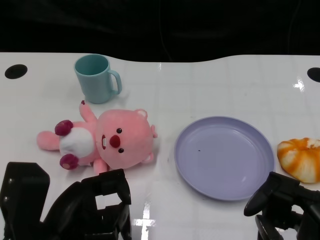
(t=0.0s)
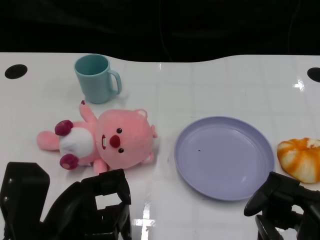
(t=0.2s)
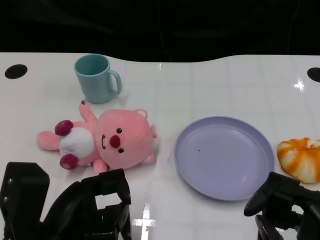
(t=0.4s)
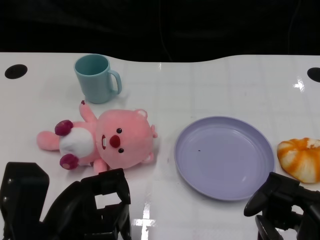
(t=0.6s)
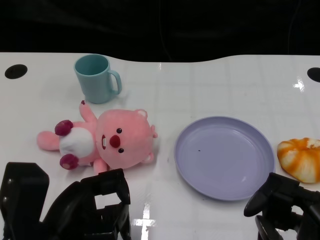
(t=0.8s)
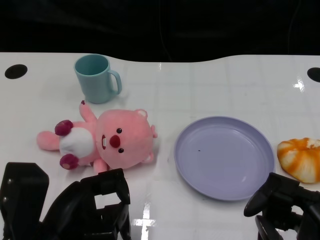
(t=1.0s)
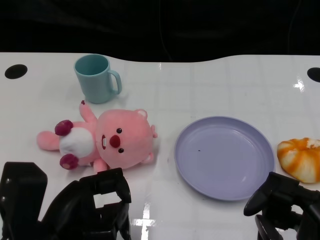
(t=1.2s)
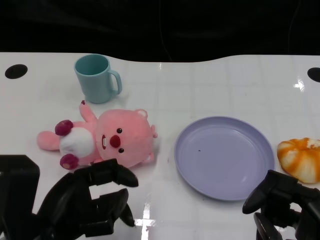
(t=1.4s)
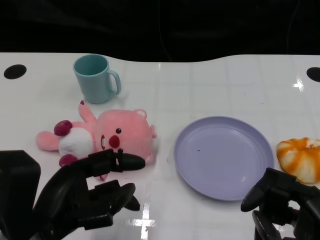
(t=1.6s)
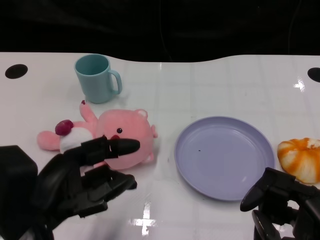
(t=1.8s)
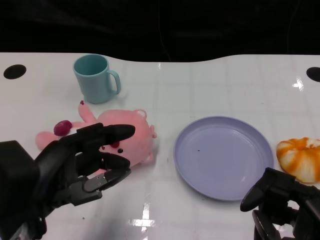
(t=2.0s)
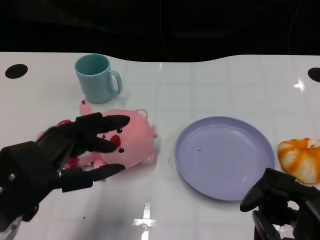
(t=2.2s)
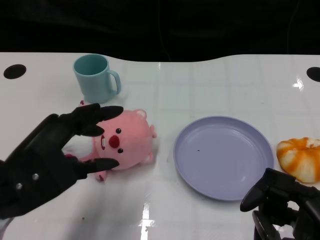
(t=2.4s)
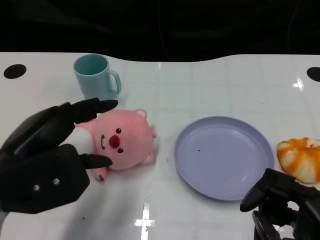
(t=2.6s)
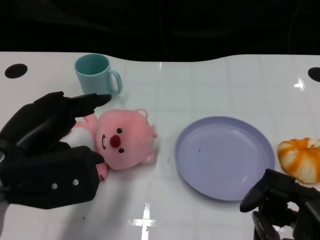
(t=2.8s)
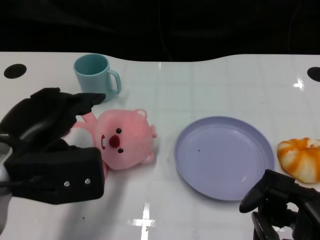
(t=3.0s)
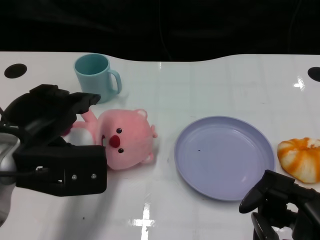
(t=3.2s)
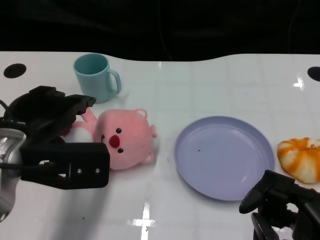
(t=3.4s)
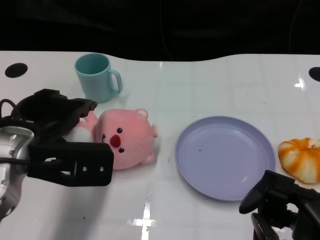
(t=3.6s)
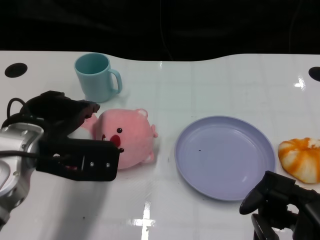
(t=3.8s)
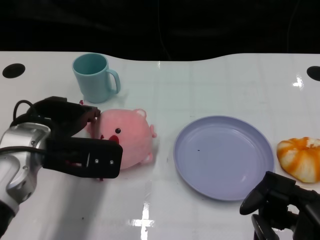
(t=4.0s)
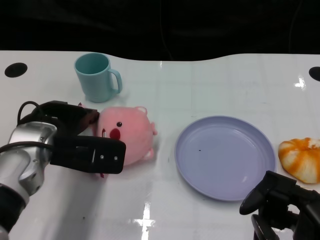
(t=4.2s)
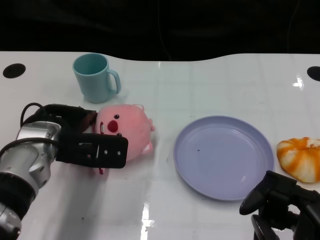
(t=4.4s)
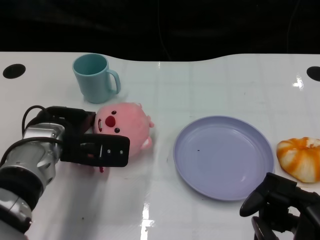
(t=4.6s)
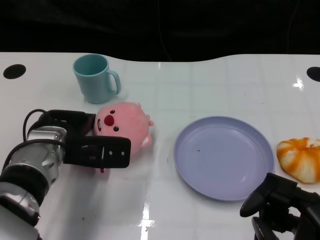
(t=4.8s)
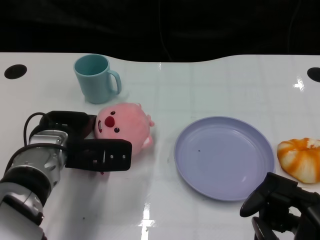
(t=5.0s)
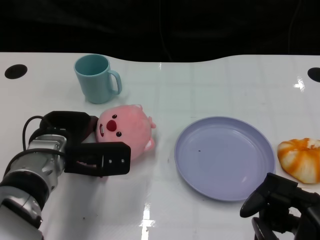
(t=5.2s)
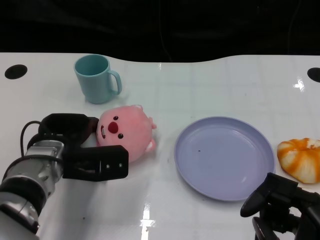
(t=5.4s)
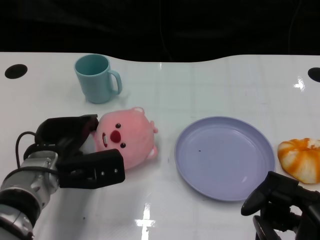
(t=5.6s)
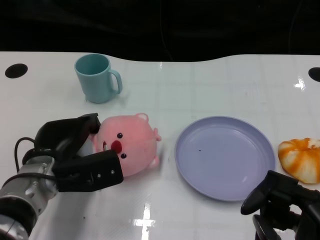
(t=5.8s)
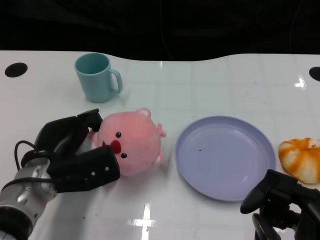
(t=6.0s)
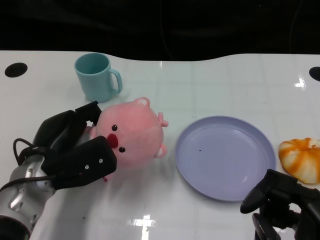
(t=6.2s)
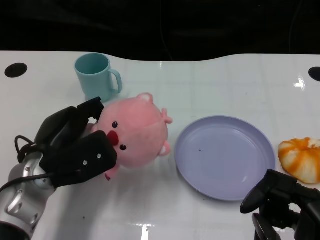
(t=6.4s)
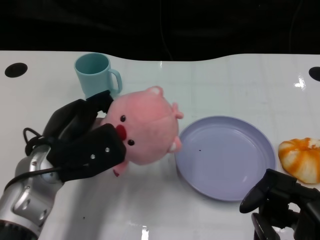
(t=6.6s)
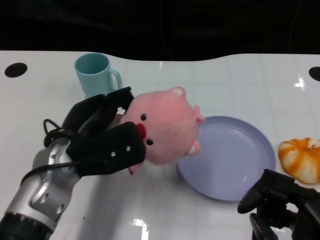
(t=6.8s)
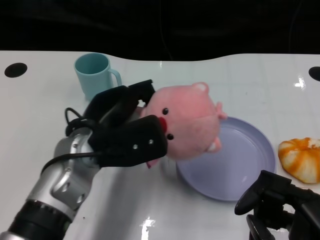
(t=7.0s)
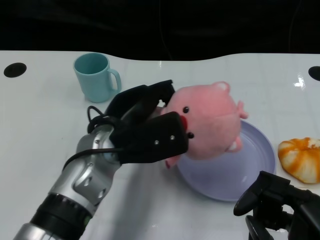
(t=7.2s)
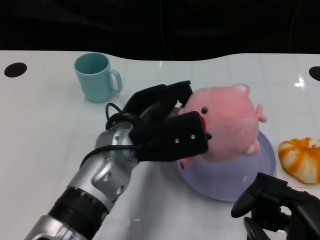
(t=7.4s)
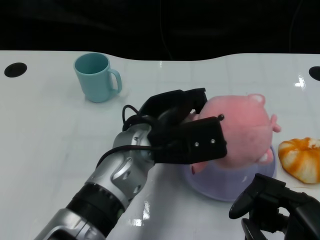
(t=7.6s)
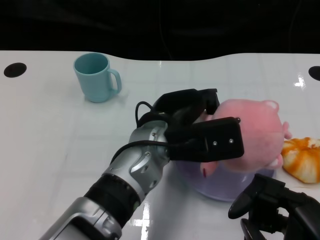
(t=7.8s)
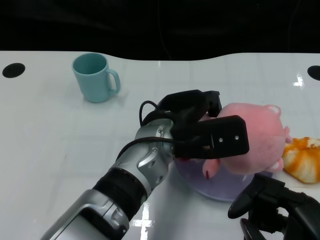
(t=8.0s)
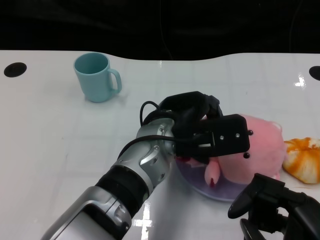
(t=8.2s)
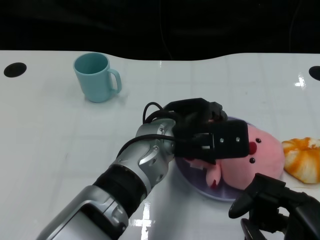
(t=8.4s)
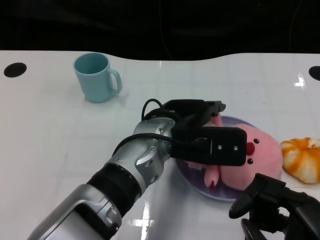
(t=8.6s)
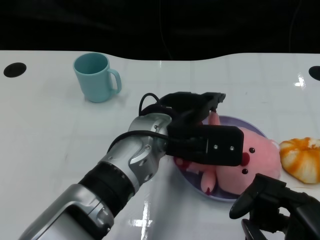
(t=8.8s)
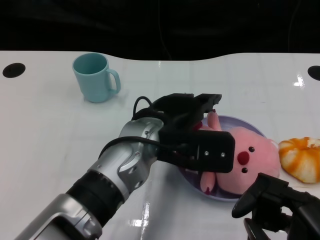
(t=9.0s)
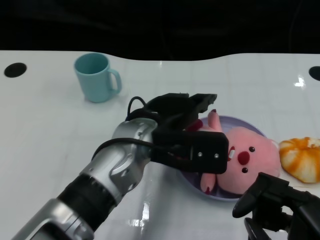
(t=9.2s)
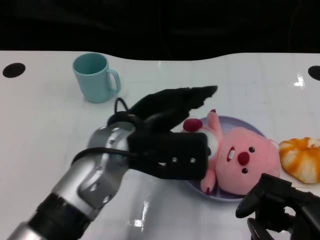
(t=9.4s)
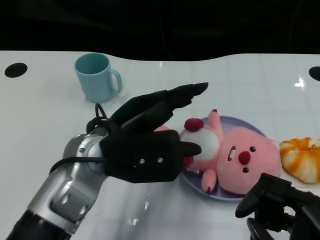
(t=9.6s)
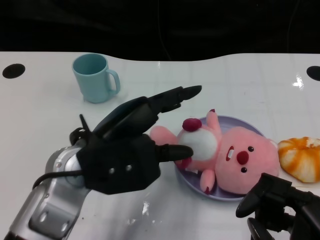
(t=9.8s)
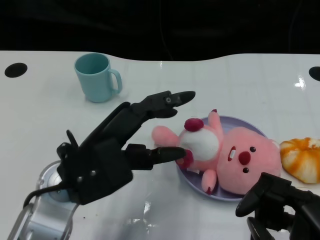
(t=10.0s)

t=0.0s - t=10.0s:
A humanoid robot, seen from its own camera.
Task of the whole recording: Pick up the doll on one side of the plate and place it into the plate.
Step, t=1.2s - t=5.8s: Grasp the pink doll with the left gripper.
Step, t=6.0s - t=9.2s: Place the pink doll into the plate with the left gripper.
t=1.4s - t=2.8s: The left hand moves upward and forward, roughly 10 cm.
t=2.8s - t=4.2s: The left hand moves forward and downward, approximately 10 cm.
t=4.2s - t=5.8s: The left hand is displaced downward by approximately 5 cm.
t=5.8s - t=7.2s: The left hand is displaced to the right and upward by some 10 cm.
t=7.2s - t=8.6s: The left hand travels to the right by some 10 cm.
t=8.6s - t=10.0s: The left hand goes some 15 cm to the left and backward.

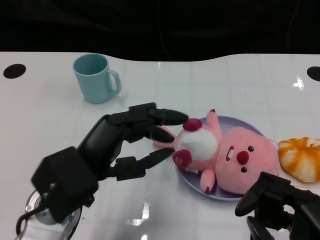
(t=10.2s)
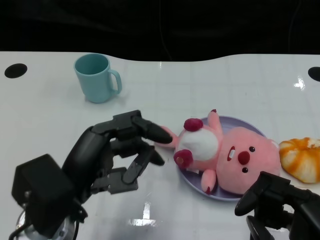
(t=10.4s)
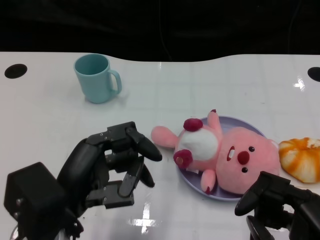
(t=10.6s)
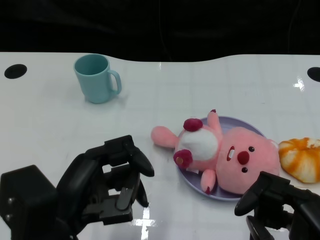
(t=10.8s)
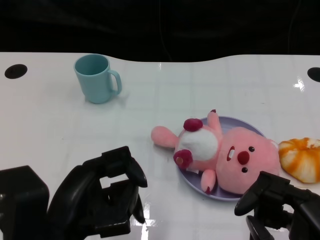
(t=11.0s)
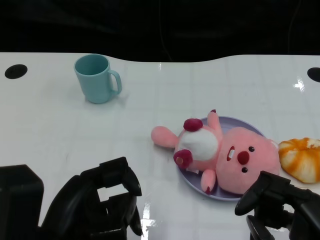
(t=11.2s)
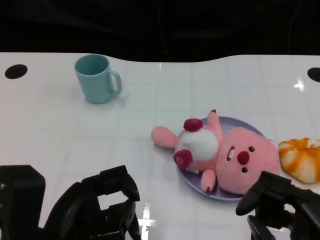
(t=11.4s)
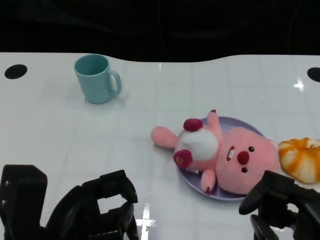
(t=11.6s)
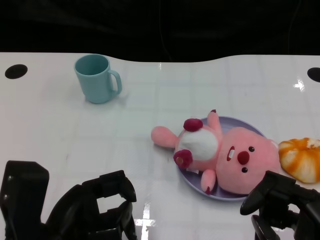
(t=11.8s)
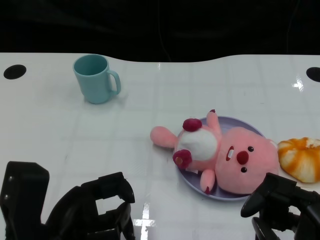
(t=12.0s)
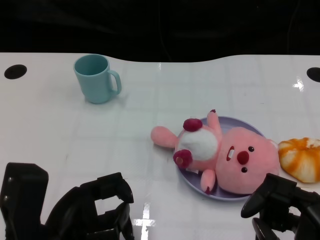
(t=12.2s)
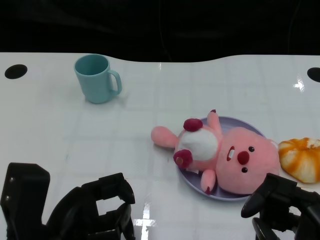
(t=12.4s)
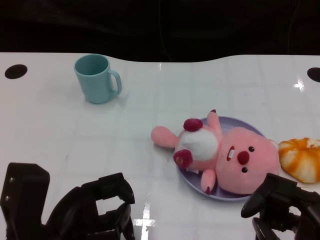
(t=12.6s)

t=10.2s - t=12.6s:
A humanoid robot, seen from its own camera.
Task of the whole recording: Pick up the doll on one side of the plate and place it into the plate.
t=10.2s - t=11.4s: The left hand goes roughly 5 cm backward.
t=11.4s - t=12.6s: There are only small adjustments of the hands.

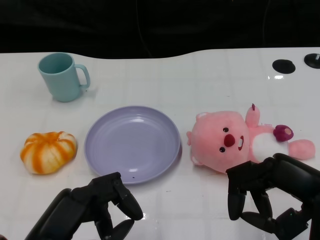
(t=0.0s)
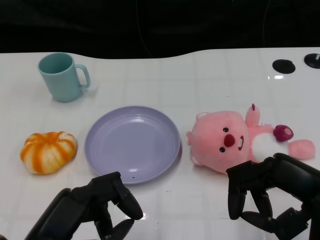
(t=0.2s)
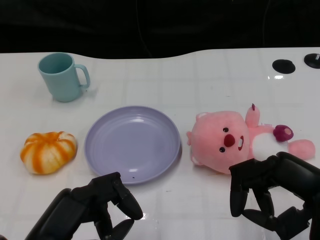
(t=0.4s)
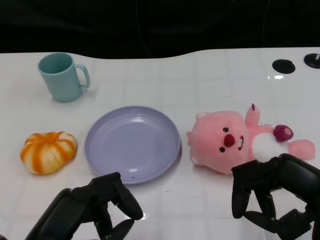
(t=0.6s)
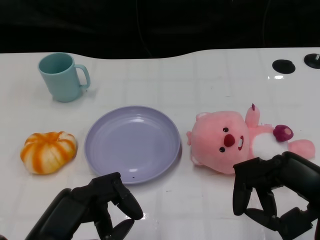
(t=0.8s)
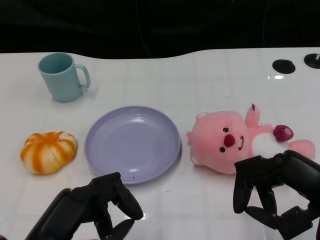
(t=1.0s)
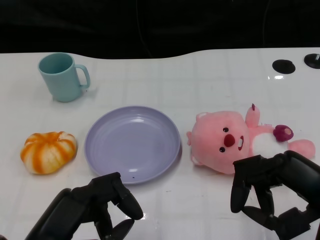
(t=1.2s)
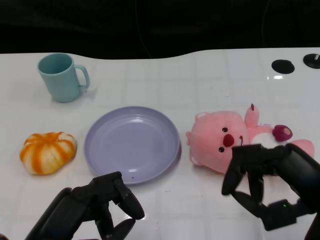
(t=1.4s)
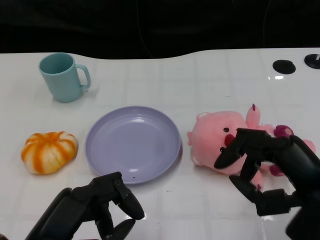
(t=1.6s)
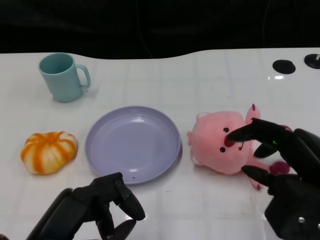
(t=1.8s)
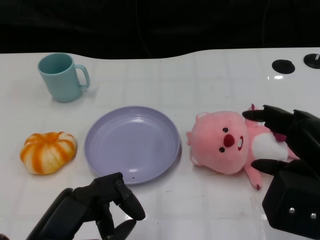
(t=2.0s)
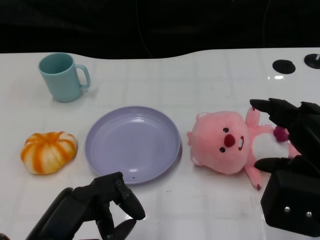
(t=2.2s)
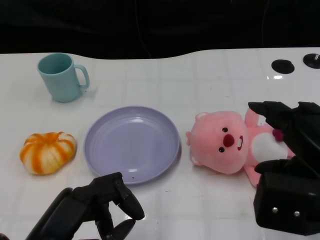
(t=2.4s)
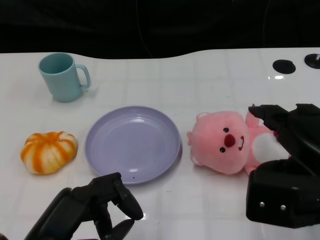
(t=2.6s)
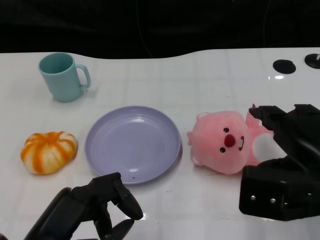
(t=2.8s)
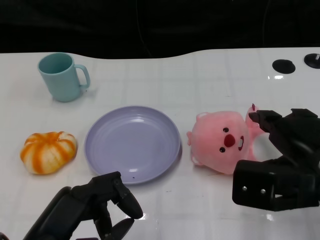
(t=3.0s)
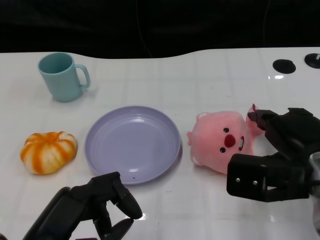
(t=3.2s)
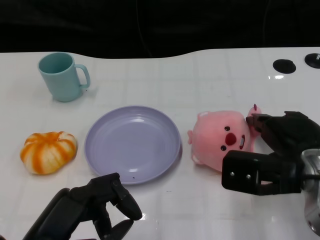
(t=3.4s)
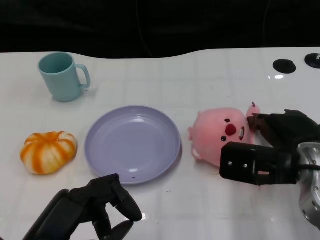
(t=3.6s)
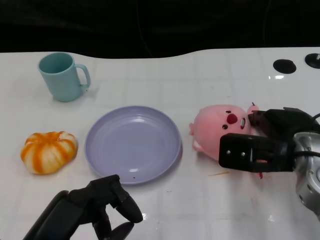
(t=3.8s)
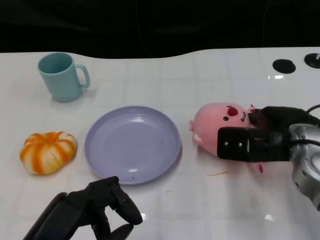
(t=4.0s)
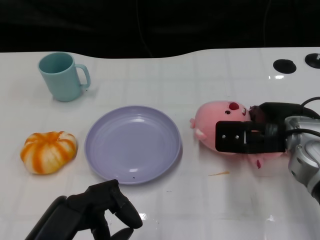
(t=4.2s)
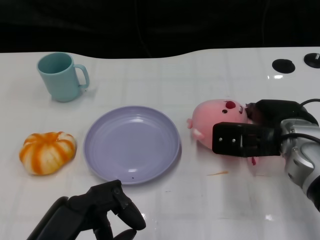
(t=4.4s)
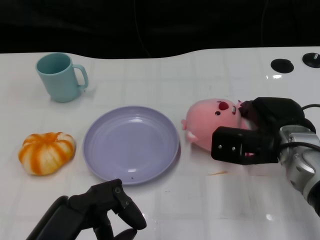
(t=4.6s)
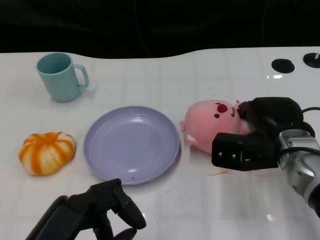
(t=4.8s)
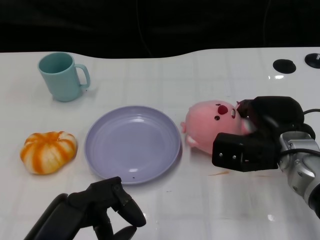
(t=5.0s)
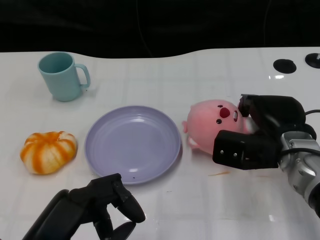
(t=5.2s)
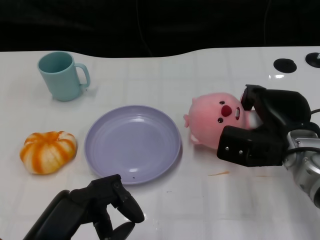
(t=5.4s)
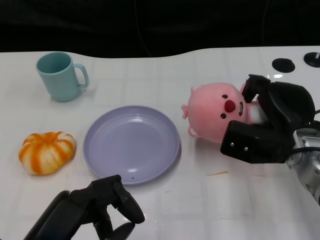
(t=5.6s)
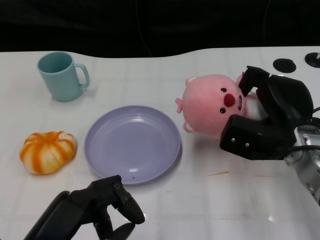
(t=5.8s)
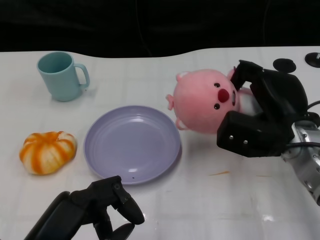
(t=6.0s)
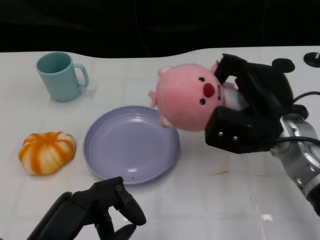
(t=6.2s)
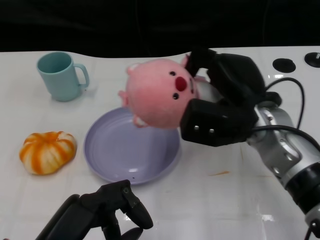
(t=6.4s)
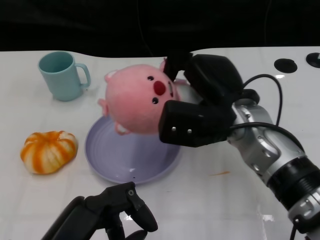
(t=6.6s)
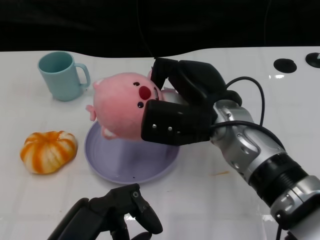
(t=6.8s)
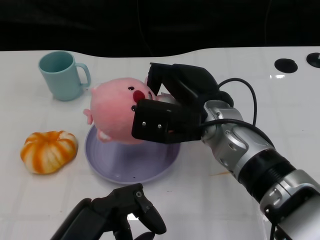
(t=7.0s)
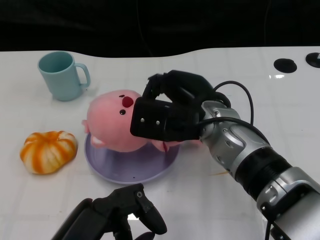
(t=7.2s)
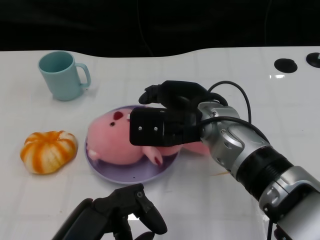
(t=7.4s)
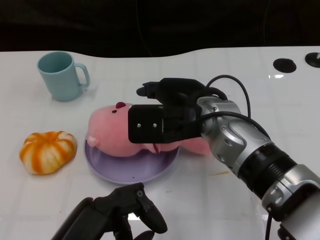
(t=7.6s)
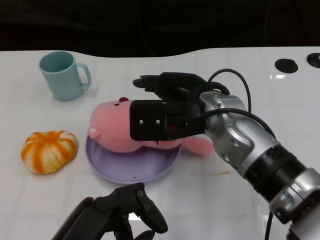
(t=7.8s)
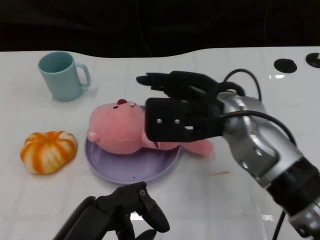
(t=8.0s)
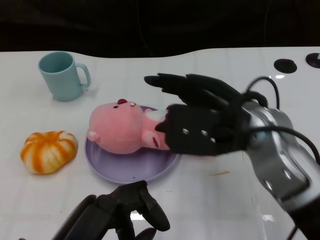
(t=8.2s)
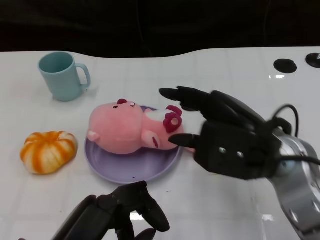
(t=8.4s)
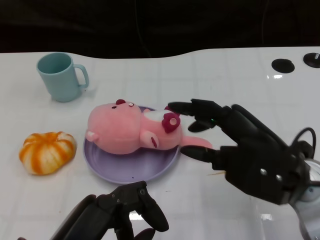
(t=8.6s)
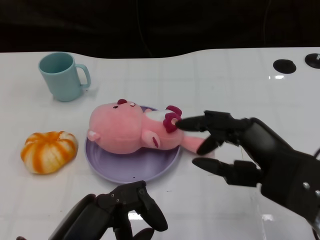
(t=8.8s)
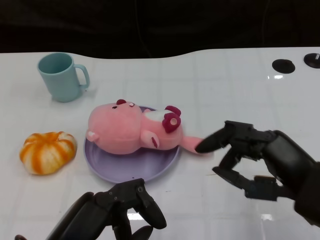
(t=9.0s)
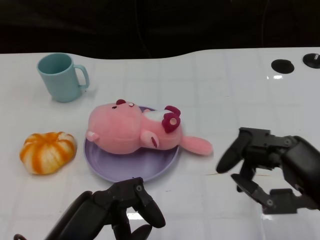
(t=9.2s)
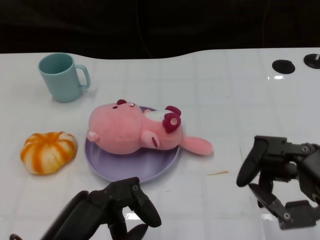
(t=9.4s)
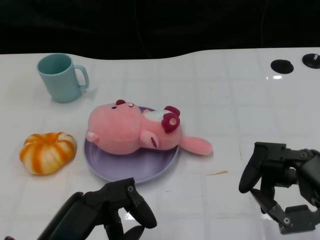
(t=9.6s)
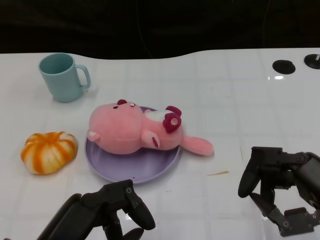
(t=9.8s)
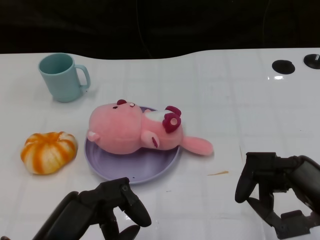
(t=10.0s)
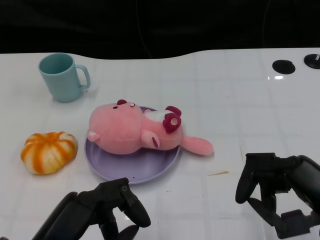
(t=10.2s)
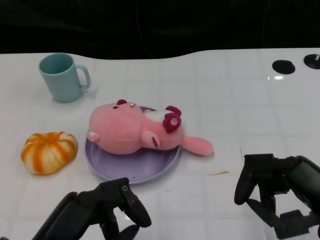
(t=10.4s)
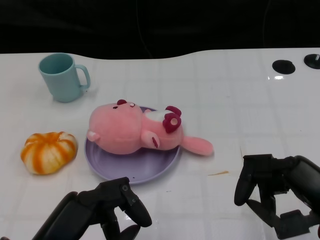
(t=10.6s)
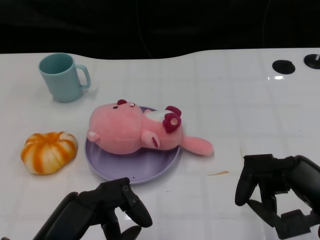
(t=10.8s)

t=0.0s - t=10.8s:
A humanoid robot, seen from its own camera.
Task of the whole recording: Pick up the doll on the other side of the plate and place it into the plate.
Step, t=1.0s - t=6.4s: Grasp the pink doll with the right gripper.
Step, t=6.6s - t=8.4s: Place the pink doll into the plate with the right gripper.
t=1.6s - t=3.0s: The right hand heads forward, covering about 5 cm.
t=3.0s - t=4.6s: The right hand travels forward and downward by roughly 10 cm.
t=6.2s - t=7.8s: The right hand goes some 10 cm to the left.
t=7.8s - t=9.2s: The right hand heads to the right and backward, covering about 20 cm.
t=9.2s - t=10.8s: There are only small adjustments of the hands.
